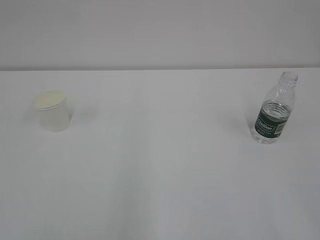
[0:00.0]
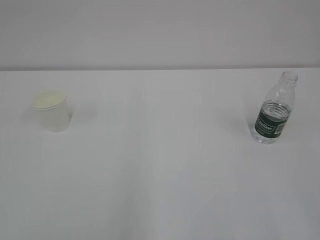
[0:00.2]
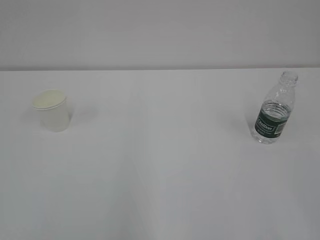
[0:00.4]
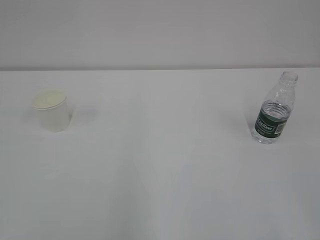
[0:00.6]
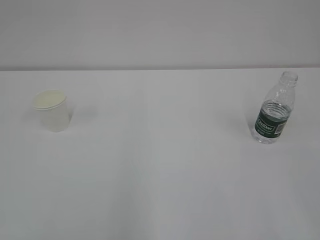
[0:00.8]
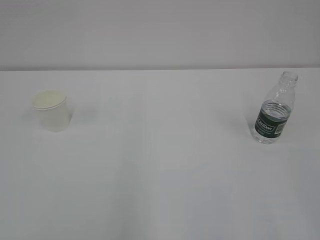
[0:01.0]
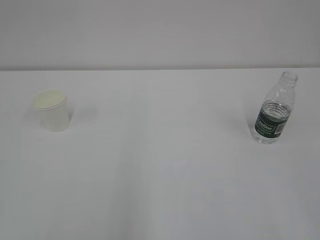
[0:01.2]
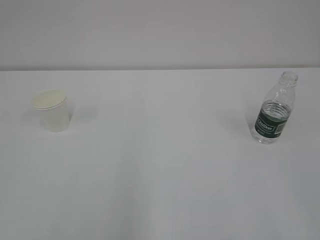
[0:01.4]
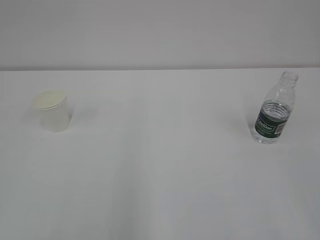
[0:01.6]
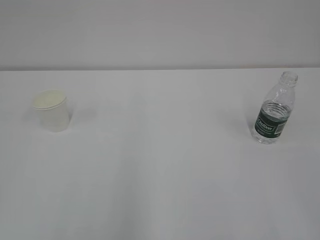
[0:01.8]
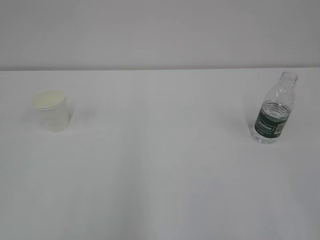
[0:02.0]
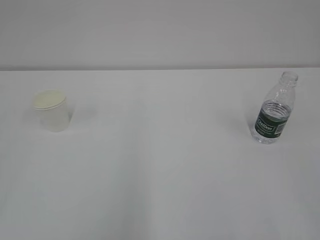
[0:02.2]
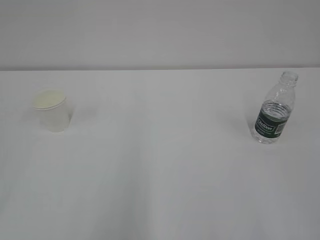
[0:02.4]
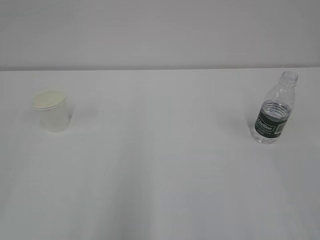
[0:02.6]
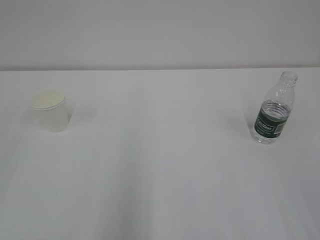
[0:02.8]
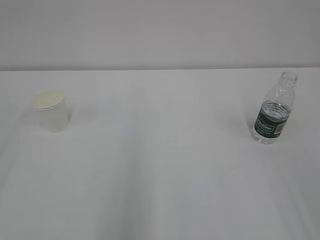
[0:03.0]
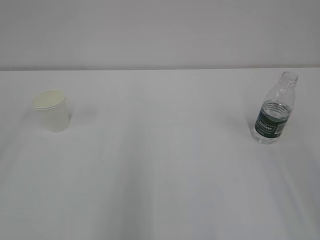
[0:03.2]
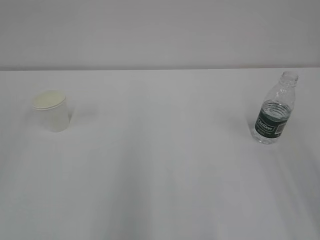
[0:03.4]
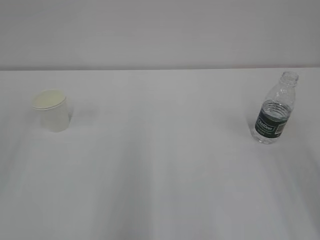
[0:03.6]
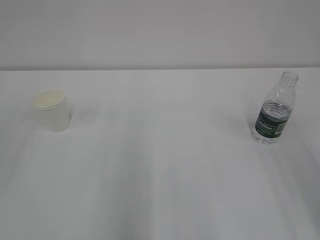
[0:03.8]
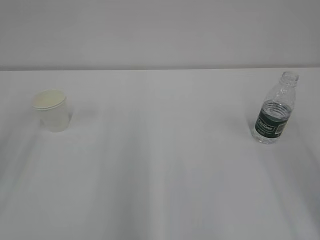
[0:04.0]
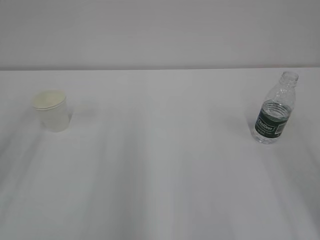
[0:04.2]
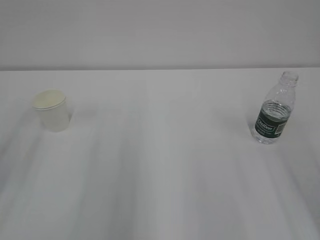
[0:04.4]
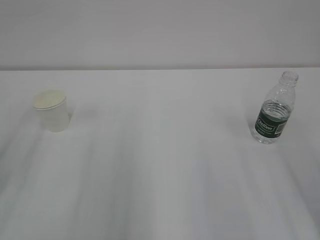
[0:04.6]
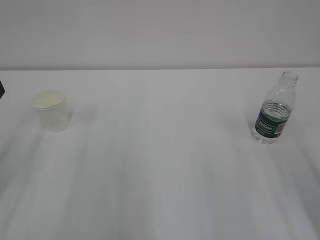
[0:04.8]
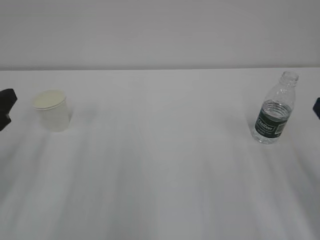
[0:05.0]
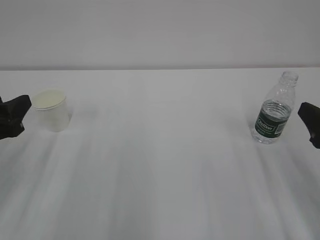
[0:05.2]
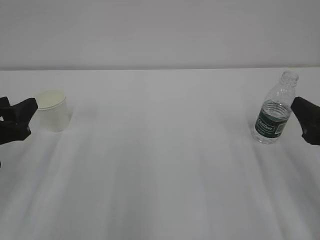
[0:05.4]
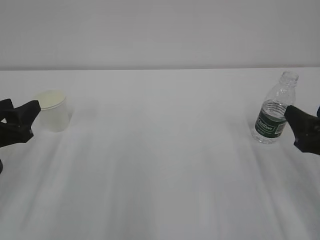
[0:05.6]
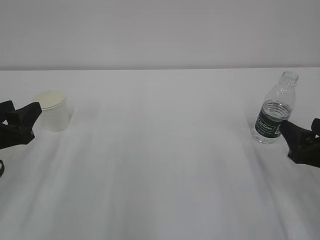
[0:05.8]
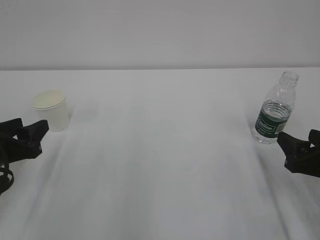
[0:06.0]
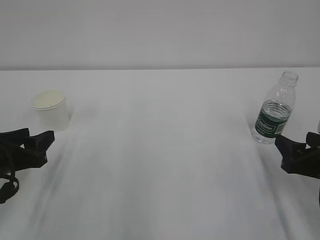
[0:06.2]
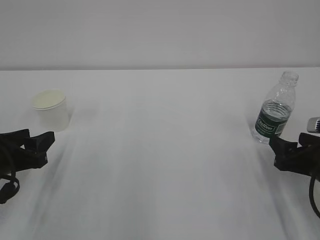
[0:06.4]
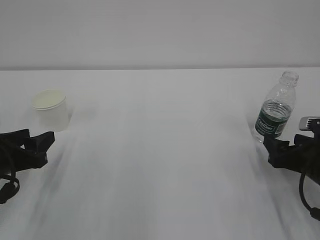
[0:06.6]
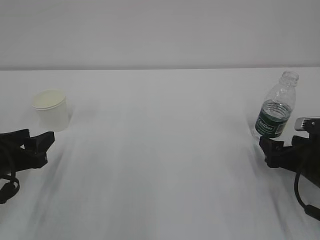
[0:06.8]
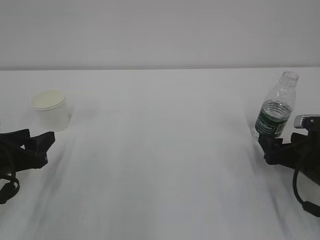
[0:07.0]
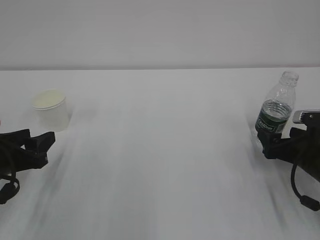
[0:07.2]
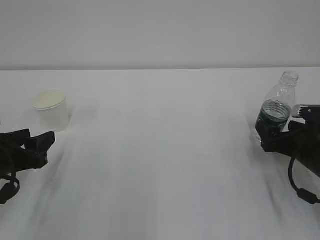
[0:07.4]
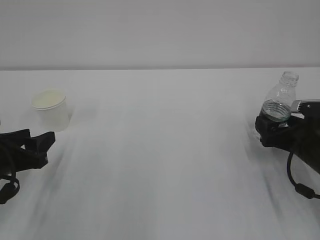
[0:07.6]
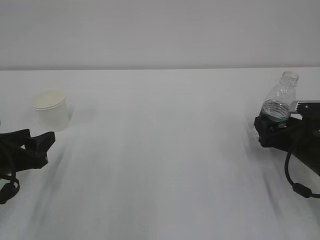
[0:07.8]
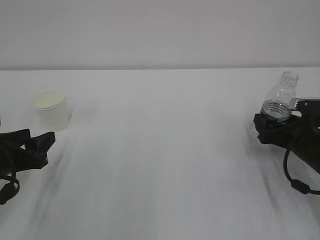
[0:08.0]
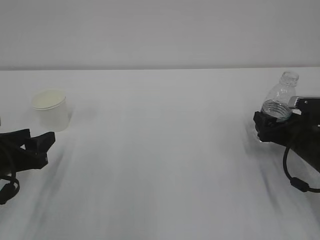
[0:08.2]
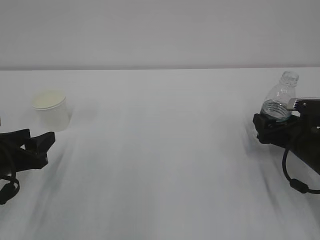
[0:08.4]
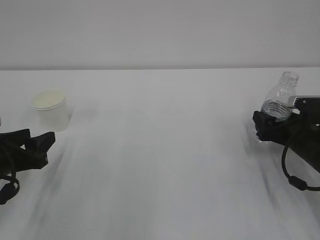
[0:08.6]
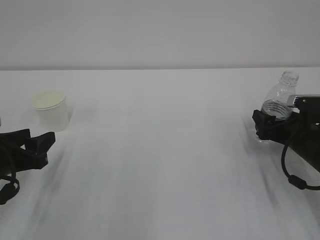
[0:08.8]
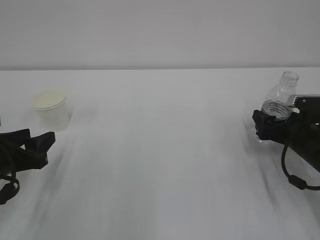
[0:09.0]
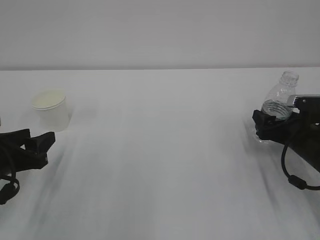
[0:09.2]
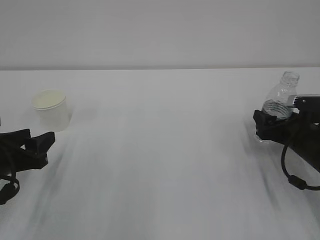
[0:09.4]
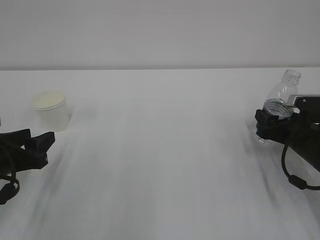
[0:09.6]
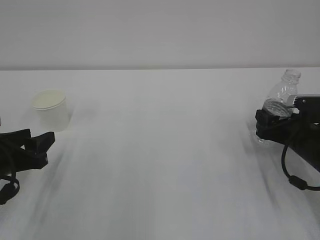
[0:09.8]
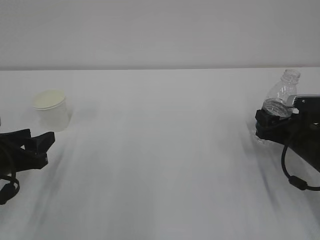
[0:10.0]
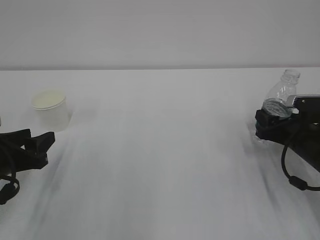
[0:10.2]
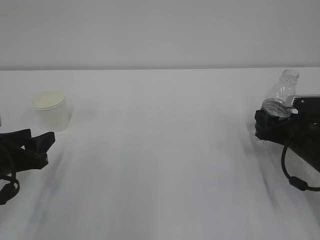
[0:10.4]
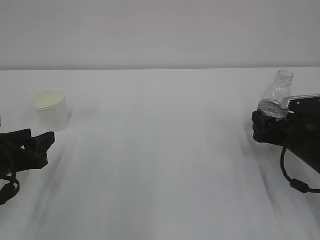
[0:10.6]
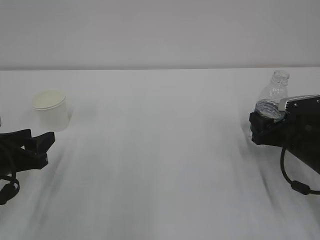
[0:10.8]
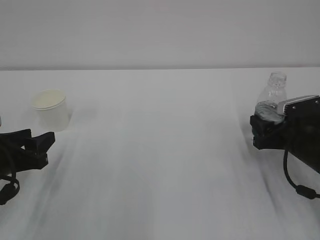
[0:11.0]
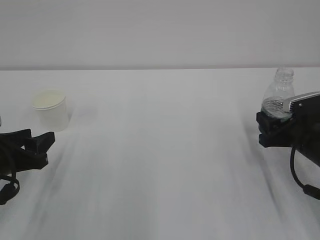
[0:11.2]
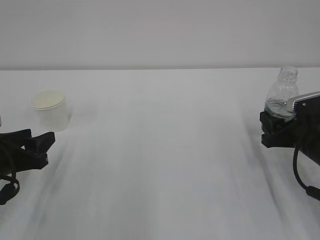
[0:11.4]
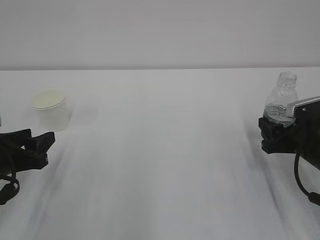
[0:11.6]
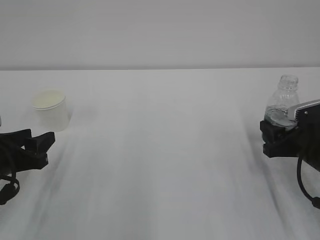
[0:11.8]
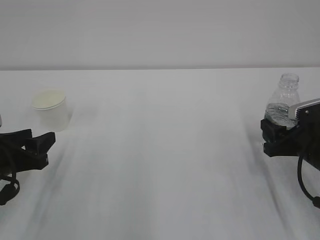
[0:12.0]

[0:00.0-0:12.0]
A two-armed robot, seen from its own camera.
0:04.4 to 0:06.0: The left gripper is displaced downward by some 10 cm. The right gripper is displaced downward and forward by approximately 15 cm.
0:06.0 to 0:07.6: The right gripper is displaced forward by about 10 cm.
0:07.6 to 0:09.0: There are only small adjustments of the grippers.
0:10.4 to 0:12.0: The grippers make only small movements.

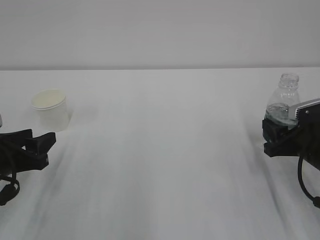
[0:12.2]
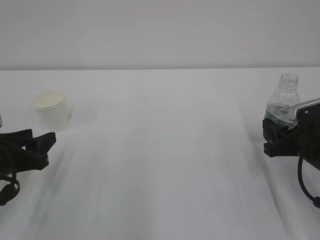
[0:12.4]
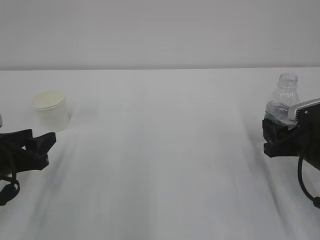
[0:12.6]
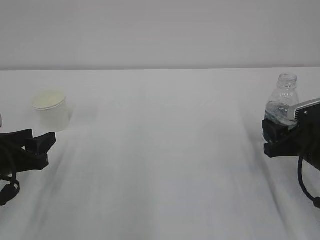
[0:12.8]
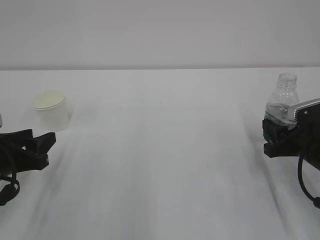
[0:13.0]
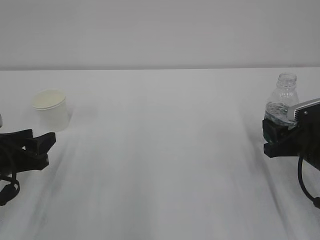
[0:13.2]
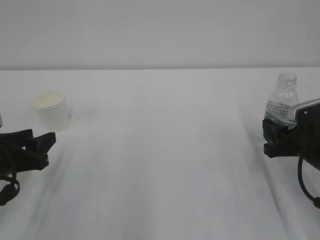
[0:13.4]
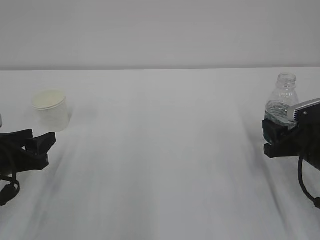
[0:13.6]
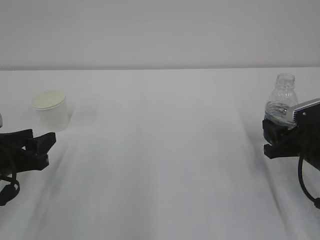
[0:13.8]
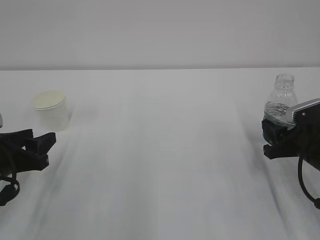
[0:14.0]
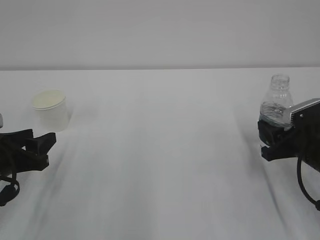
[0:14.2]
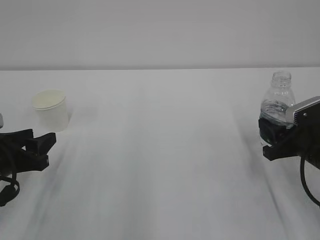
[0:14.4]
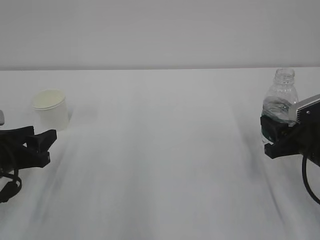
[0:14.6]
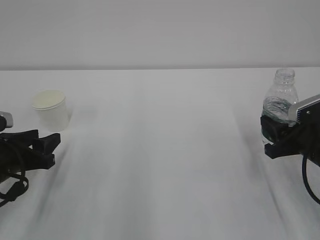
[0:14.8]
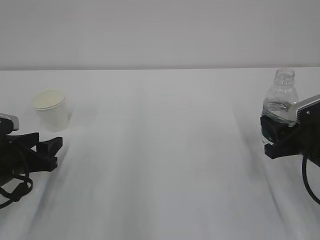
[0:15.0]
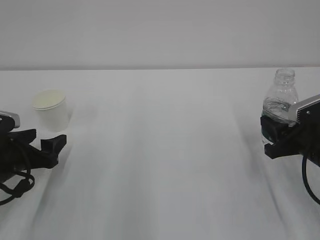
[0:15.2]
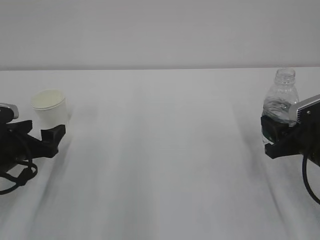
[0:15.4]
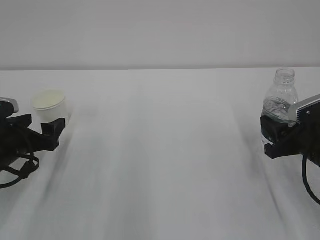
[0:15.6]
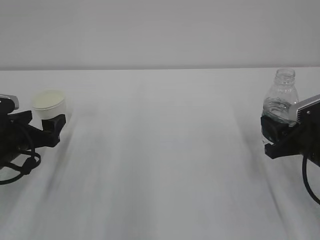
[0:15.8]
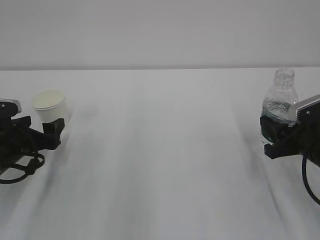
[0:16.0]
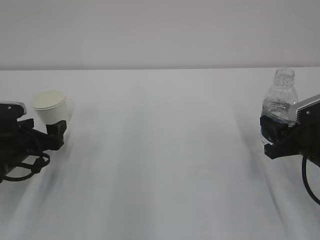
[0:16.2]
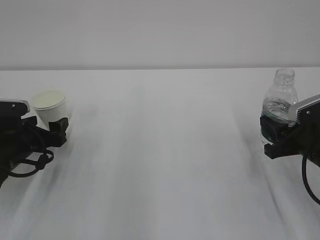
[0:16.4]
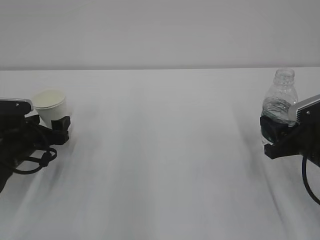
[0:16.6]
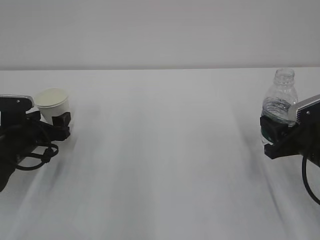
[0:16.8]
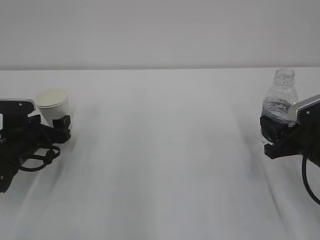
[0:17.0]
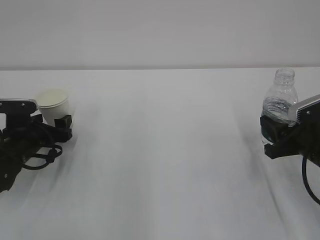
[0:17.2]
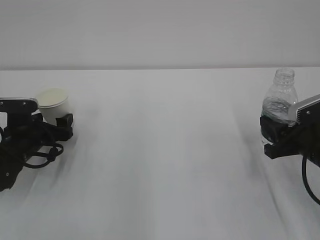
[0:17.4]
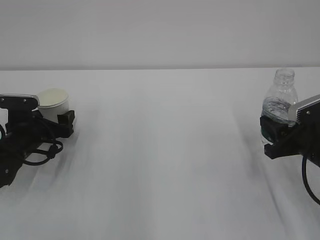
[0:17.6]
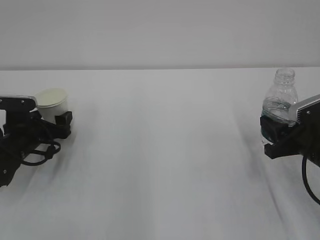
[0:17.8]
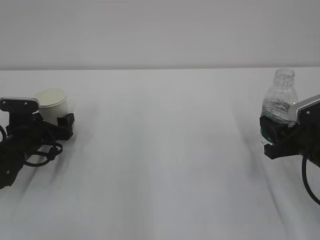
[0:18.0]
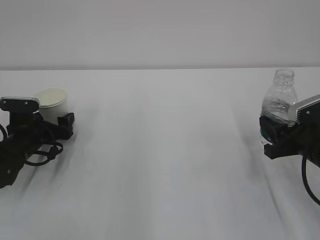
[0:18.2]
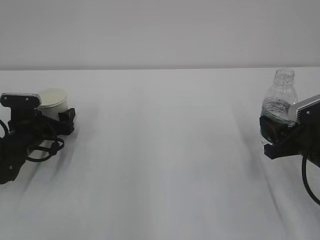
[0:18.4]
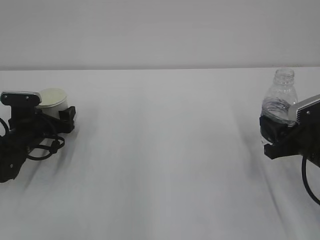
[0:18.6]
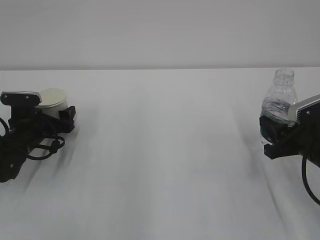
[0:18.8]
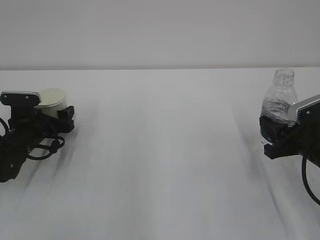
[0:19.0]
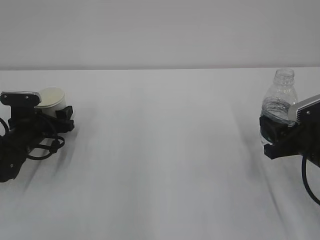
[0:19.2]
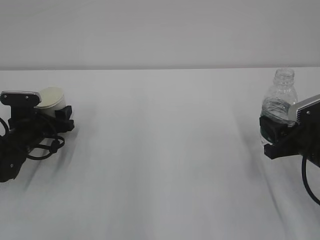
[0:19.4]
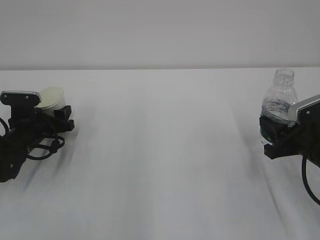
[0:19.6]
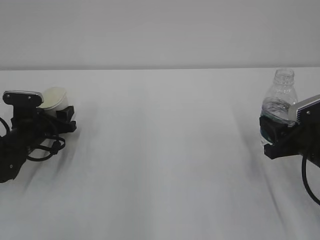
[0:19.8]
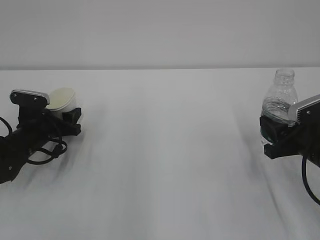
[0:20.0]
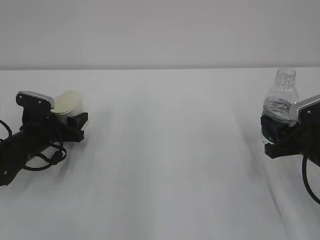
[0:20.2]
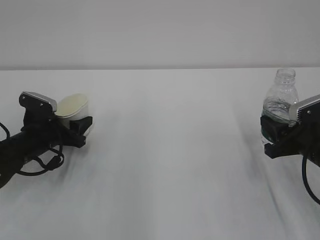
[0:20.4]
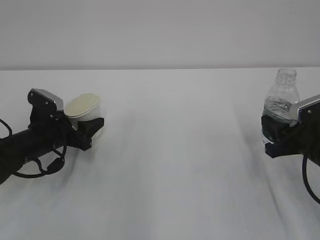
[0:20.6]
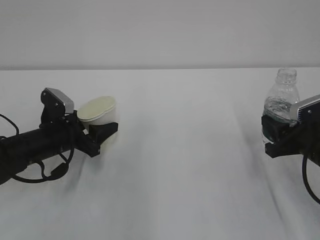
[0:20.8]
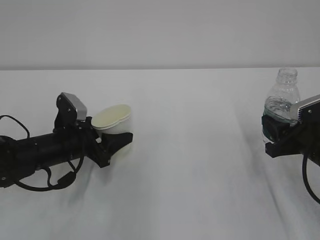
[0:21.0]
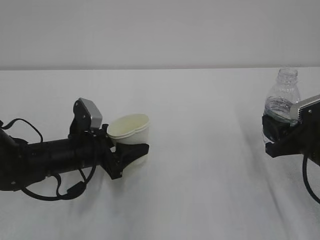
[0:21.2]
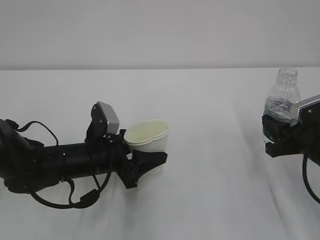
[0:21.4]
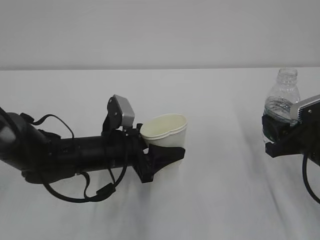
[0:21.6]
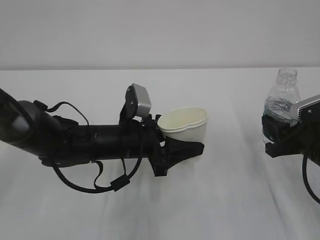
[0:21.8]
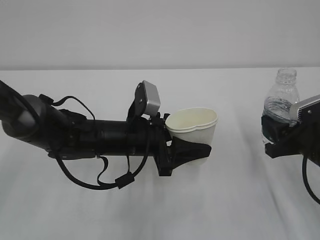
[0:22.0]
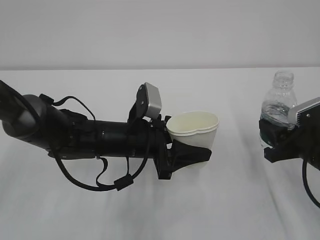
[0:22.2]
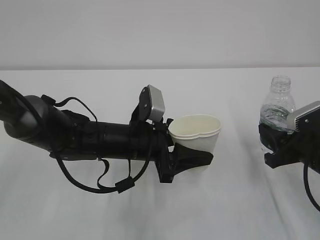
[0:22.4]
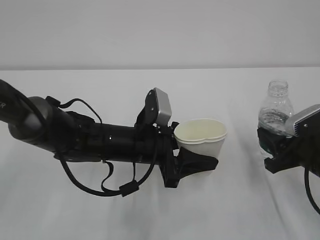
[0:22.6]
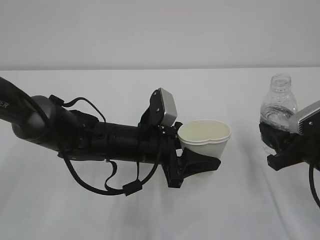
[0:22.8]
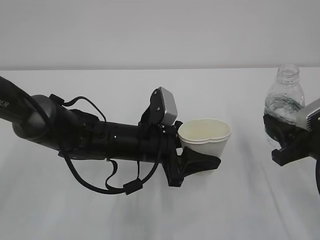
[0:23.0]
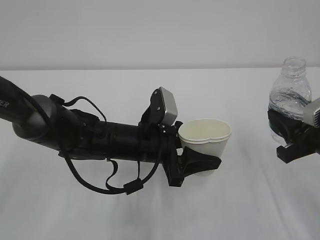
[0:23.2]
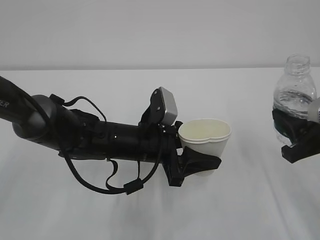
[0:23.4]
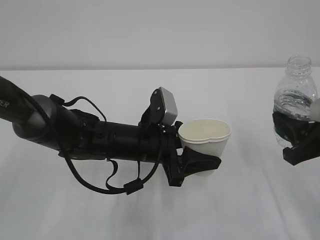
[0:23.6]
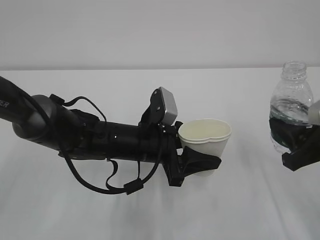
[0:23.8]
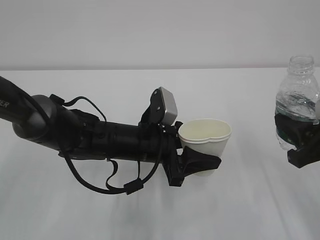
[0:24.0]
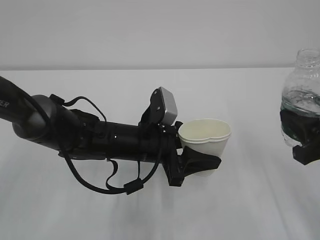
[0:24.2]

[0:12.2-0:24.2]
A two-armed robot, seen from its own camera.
0:12.2 to 0:13.8: Neither gripper changes place.
0:13.8 to 0:15.2: The left gripper opens up.
0:15.2 to 0:16.6: The left gripper travels forward by some 5 cm.
0:16.6 to 0:18.2: The grippers move only a little.
0:18.2 to 0:19.8: The left gripper closes up.
0:19.8 to 0:21.2: The left gripper heads to the right and backward, covering roughly 15 cm.
0:21.2 to 0:22.6: The left gripper goes some 10 cm to the right.
0:22.6 to 0:24.2: The right gripper is displaced upward by approximately 10 cm.
